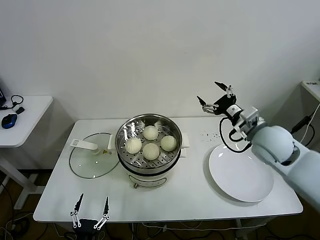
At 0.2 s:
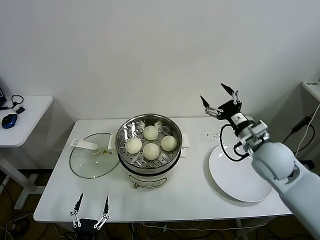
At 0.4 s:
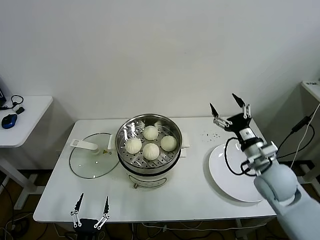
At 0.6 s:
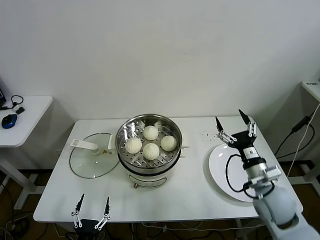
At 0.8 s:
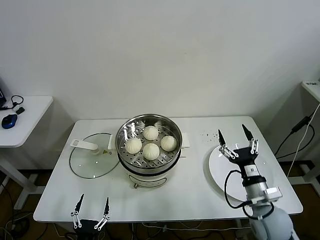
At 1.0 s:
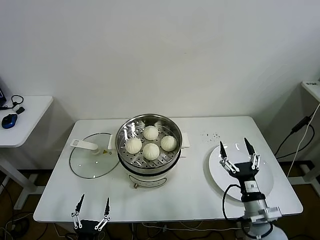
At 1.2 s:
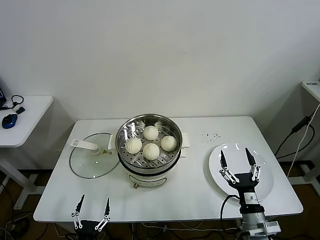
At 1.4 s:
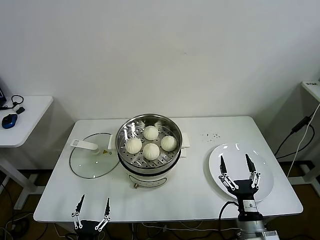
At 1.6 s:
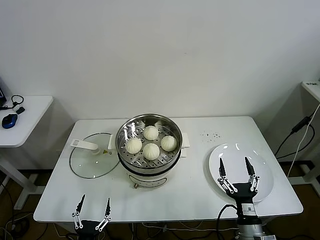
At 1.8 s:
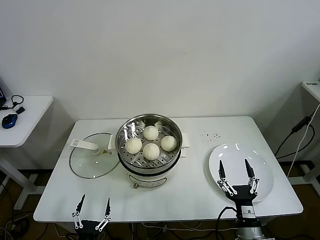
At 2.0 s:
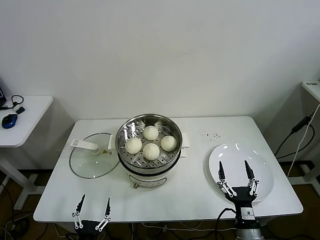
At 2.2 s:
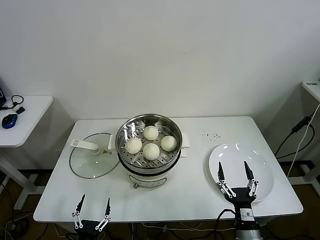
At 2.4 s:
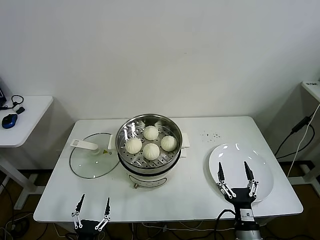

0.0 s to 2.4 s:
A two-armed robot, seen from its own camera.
Task of the whole recording: take steamed baozi put them in steamer.
0.0 to 1.2 s: The right gripper is displaced backward and downward by approximately 30 cm.
1.2 to 2.4 s: The right gripper shifts by approximately 5 cm.
